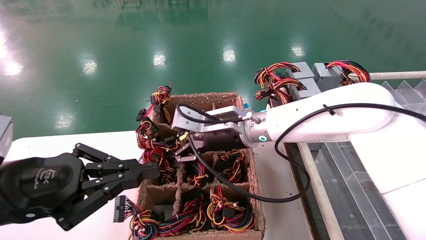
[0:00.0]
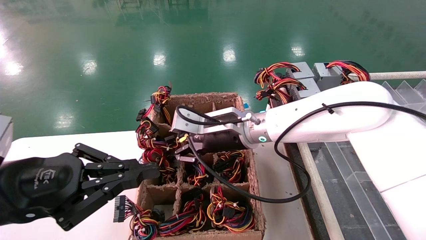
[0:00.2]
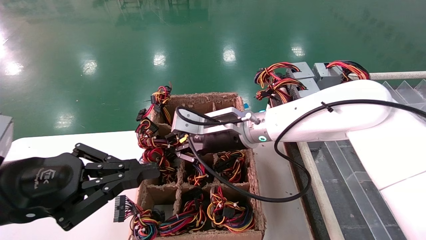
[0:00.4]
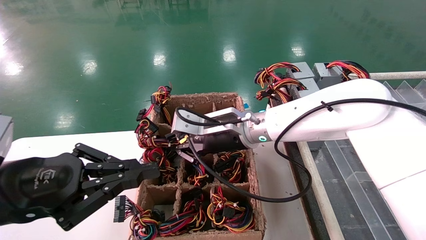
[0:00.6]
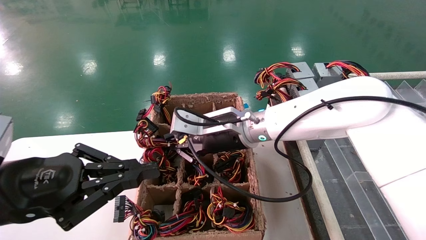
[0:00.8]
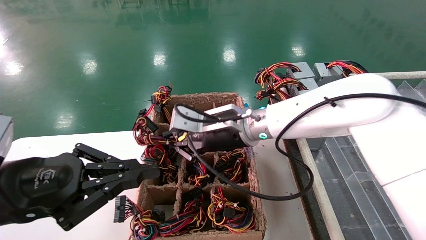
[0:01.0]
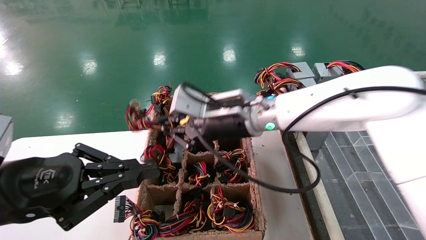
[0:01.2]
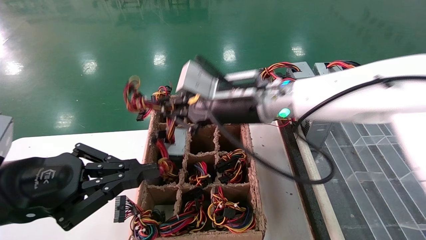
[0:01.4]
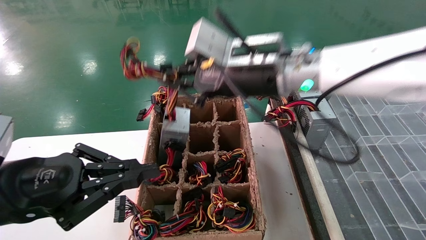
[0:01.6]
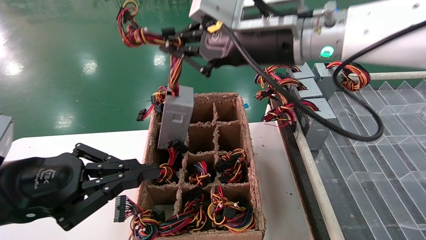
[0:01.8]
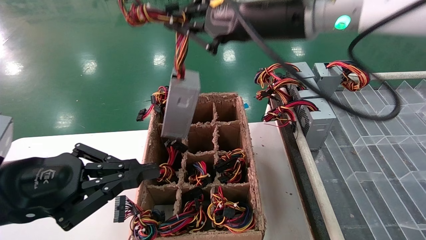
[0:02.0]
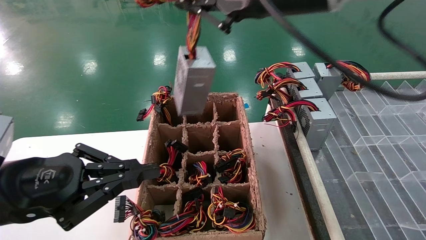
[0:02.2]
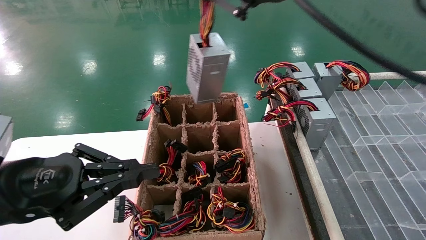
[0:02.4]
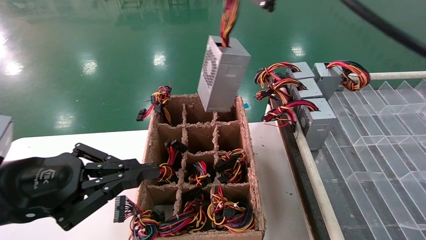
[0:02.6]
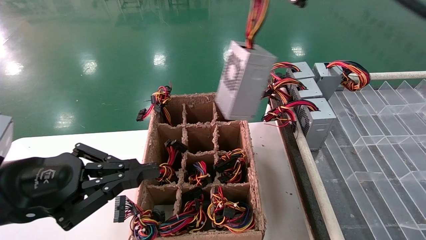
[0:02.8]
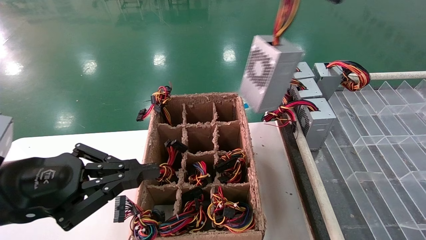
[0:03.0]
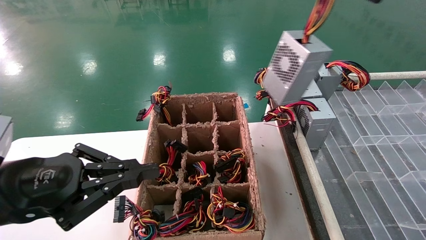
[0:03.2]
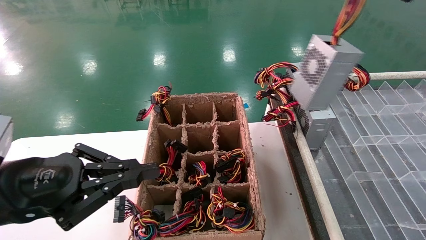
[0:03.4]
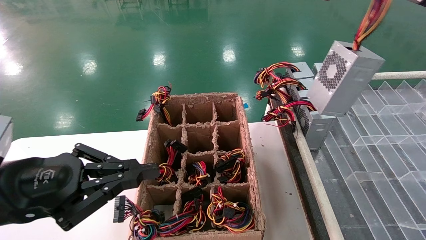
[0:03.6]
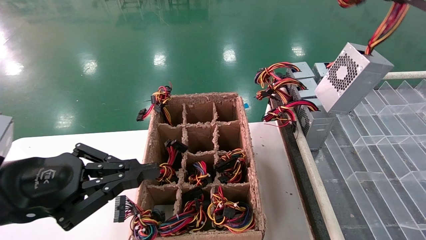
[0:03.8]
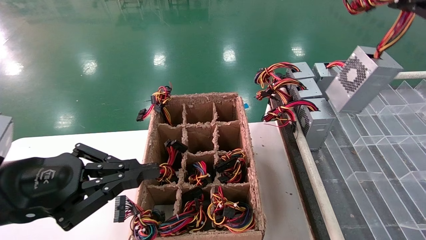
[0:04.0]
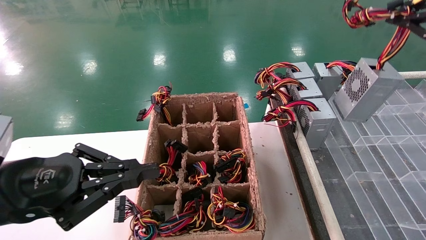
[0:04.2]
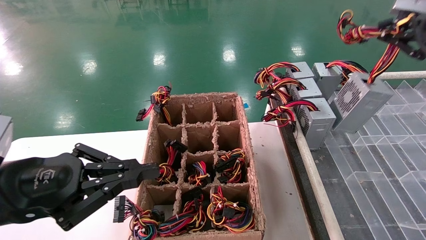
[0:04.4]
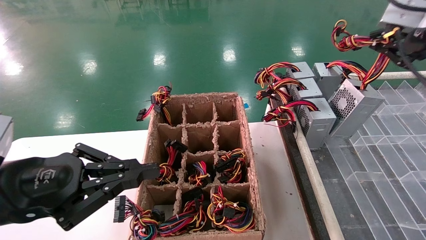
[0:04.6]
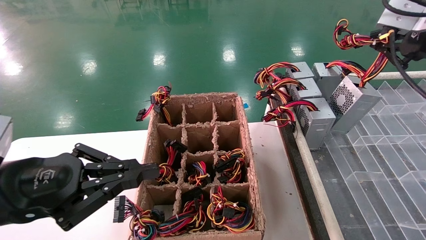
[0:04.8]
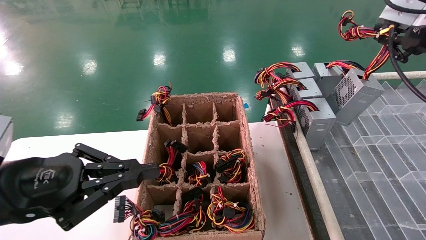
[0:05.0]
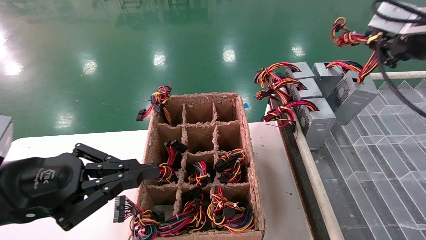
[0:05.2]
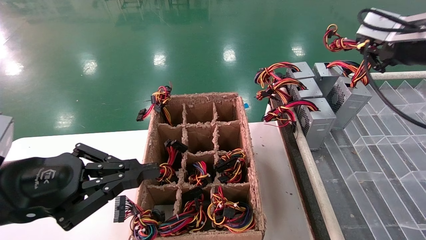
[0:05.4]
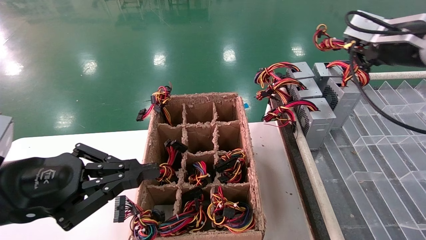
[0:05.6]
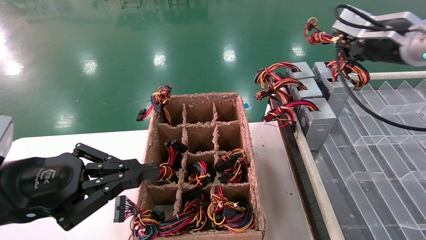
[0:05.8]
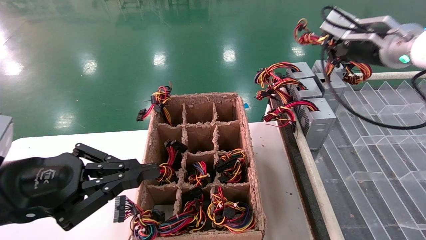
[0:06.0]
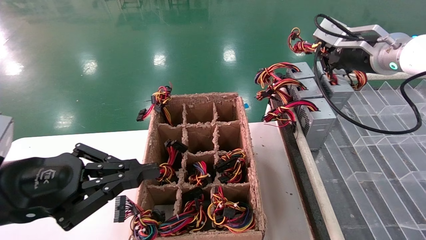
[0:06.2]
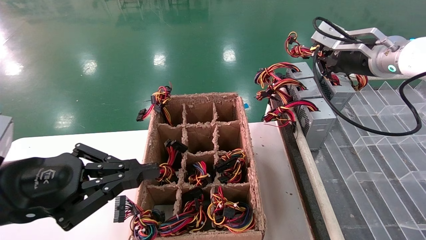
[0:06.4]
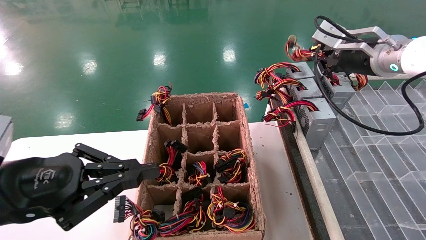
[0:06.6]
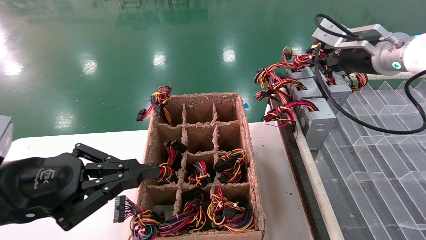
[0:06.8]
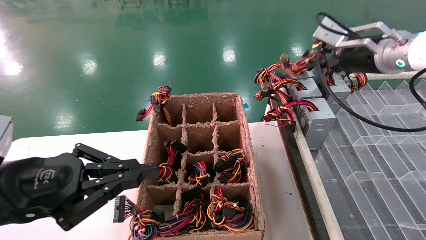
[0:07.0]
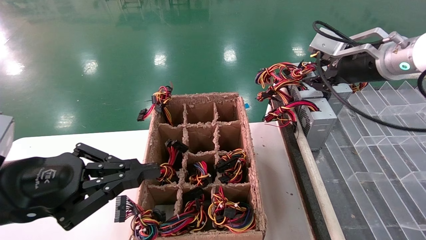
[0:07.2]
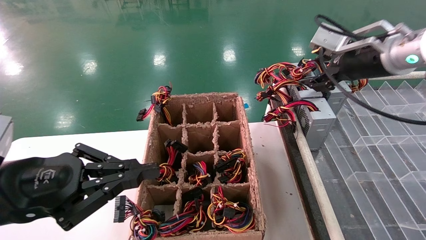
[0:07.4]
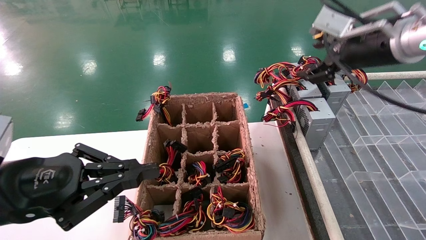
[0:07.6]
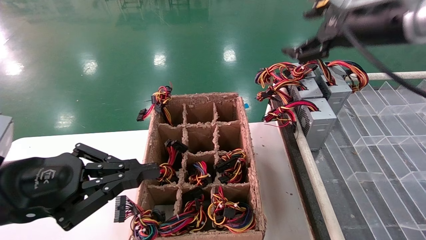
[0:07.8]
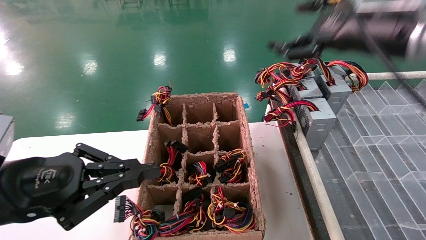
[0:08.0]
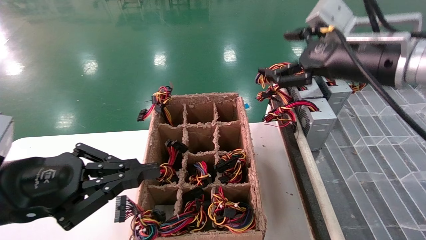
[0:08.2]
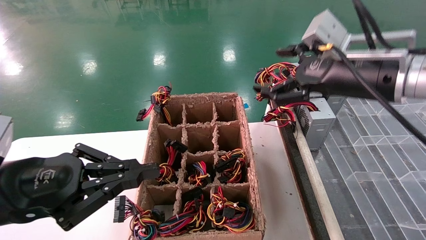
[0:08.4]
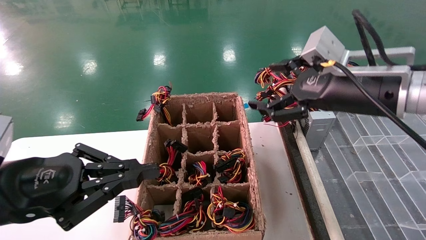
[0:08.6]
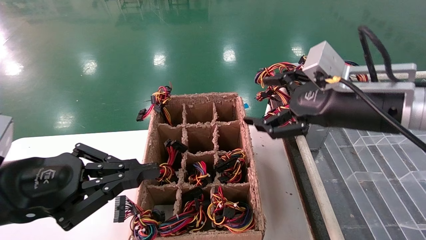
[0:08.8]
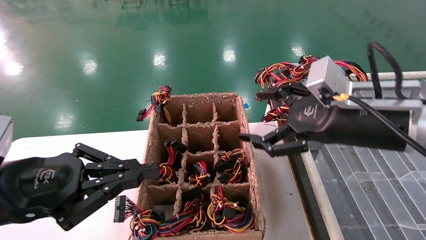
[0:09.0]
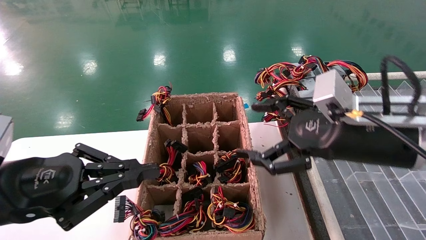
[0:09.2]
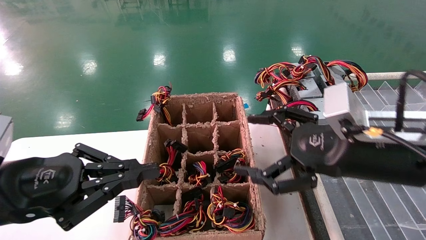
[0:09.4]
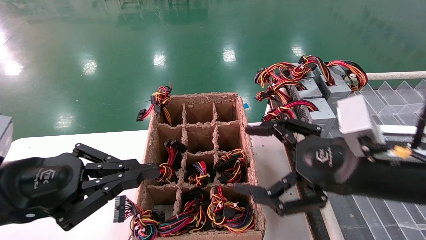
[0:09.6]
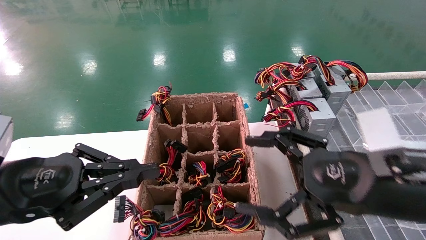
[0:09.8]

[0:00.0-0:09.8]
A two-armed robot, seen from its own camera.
Step, 0:01.0 to 0:07.4: Place the main unit power supply in the designated area.
0:00.0 to 0:01.4: The right gripper shifts approximately 10 cm upward, and closes up.
0:01.4 to 0:02.8: The right gripper is displaced upward, backward and to the right by some 25 cm.
0:02.8 to 0:04.2: The right gripper goes roughly 15 cm to the right.
0:04.2 to 0:05.6: The right gripper heads forward and downward, covering roughly 15 cm.
0:05.6 to 0:07.0: The right gripper moves some 5 cm.
0:07.0 to 0:08.4: The right gripper travels backward and to the left by about 10 cm, and opens its fingers.
0:08.4 to 0:09.8: The right gripper travels downward and backward by roughly 15 cm.

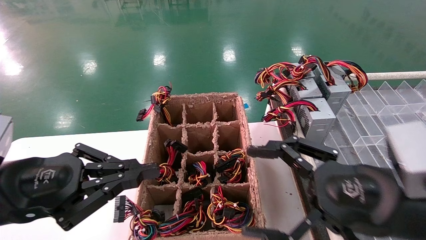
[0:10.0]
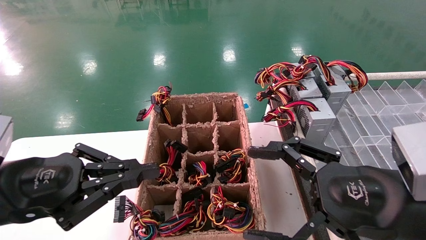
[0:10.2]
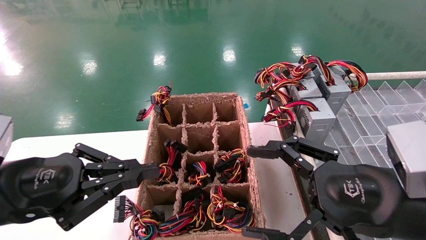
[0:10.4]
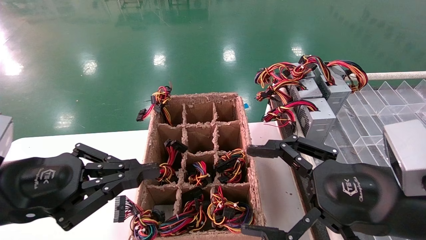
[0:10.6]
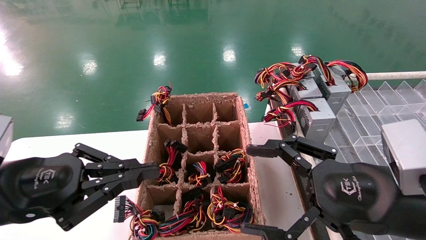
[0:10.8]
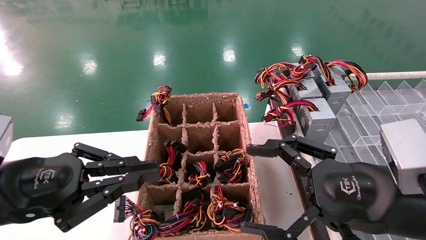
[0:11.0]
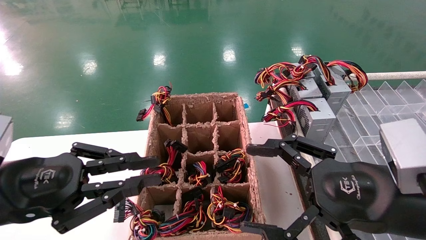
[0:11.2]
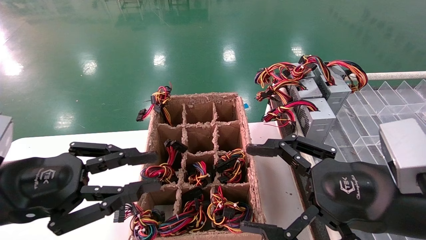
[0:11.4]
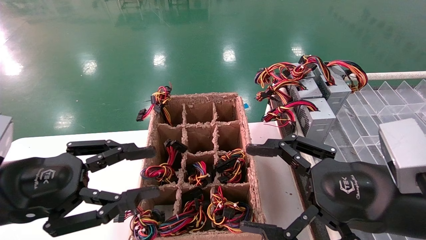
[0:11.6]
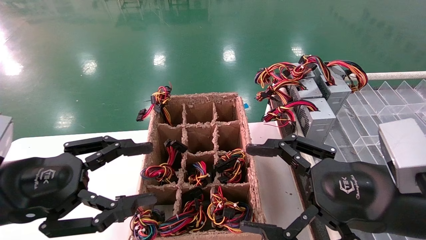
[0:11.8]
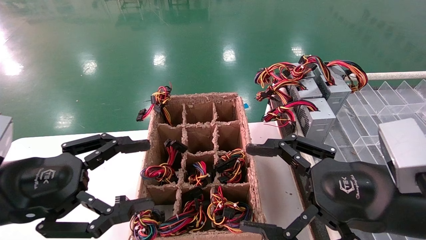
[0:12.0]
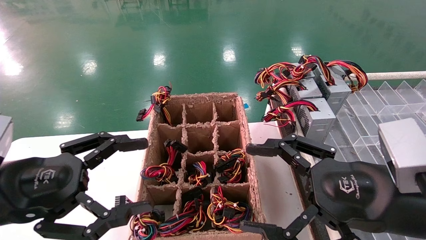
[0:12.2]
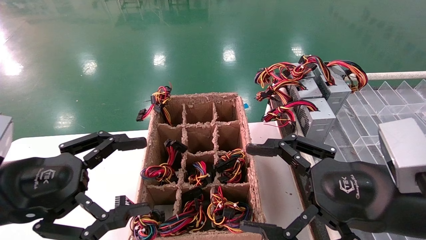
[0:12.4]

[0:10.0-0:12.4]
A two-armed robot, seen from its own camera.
0:10.0 to 0:11.2: The two grippers keep their place.
0:11.2 to 0:12.4: The left gripper opens its fingers.
